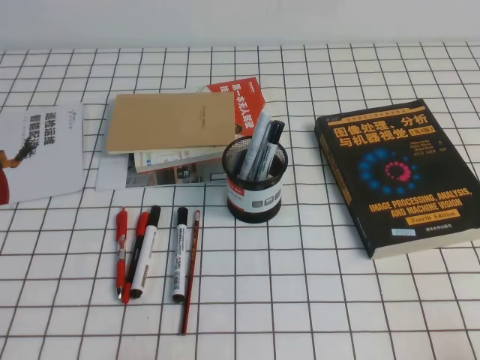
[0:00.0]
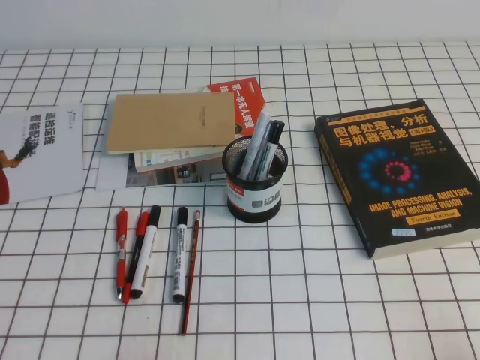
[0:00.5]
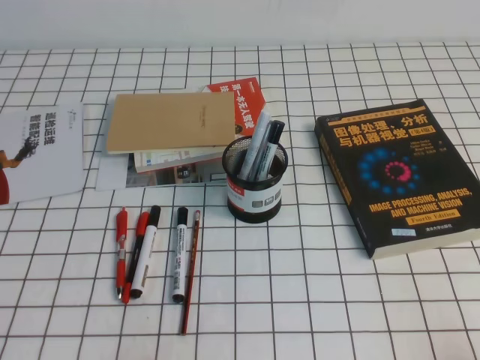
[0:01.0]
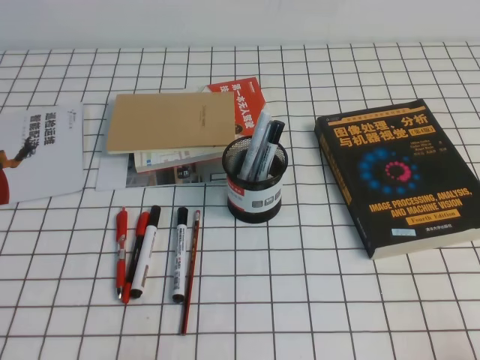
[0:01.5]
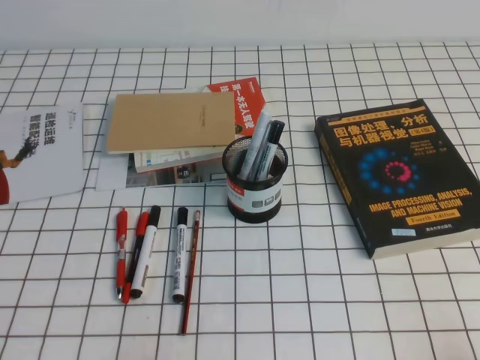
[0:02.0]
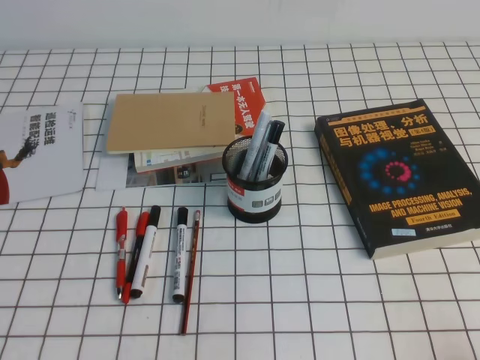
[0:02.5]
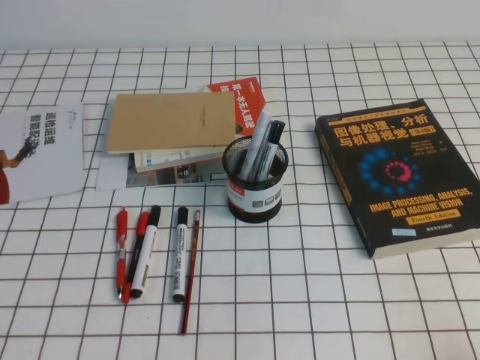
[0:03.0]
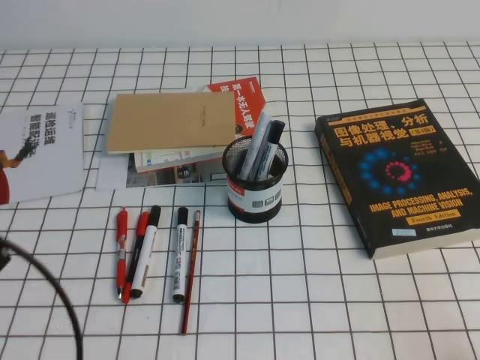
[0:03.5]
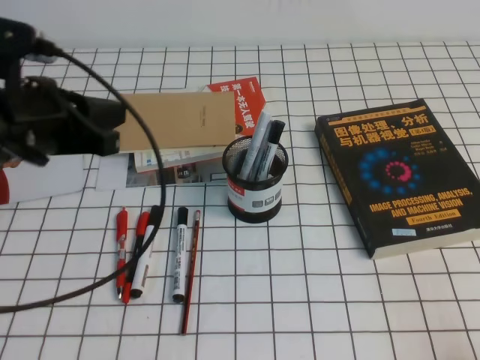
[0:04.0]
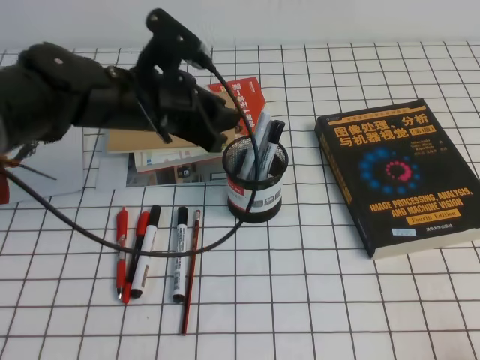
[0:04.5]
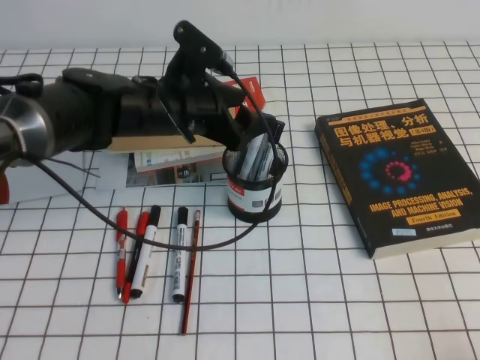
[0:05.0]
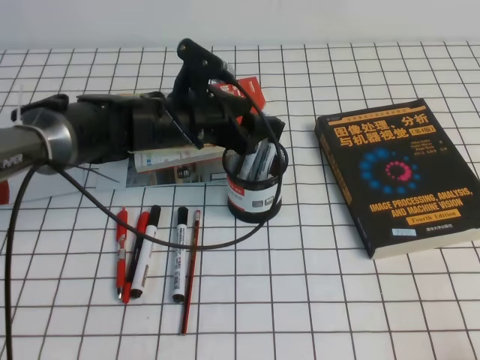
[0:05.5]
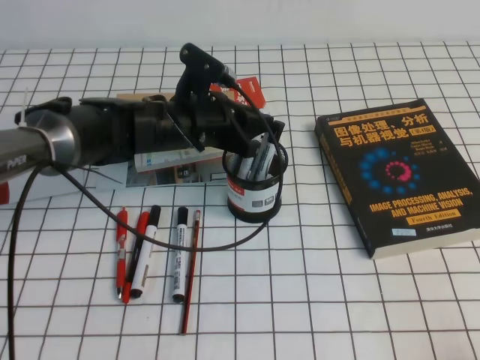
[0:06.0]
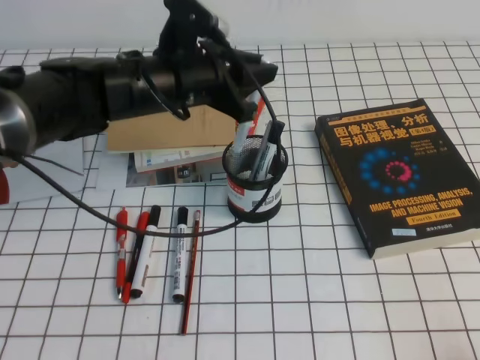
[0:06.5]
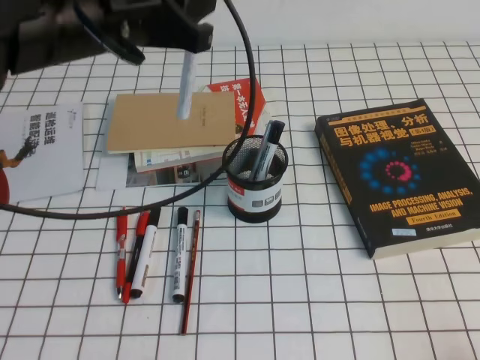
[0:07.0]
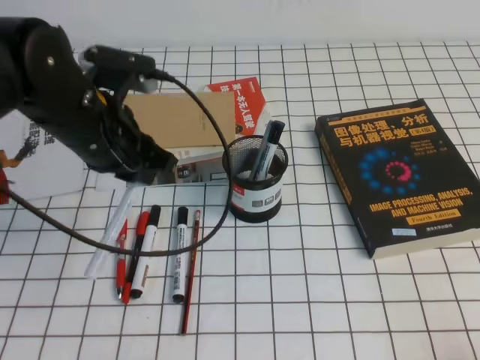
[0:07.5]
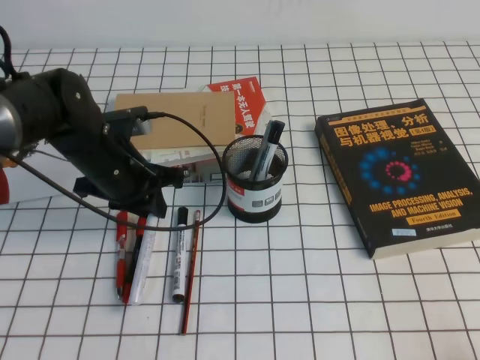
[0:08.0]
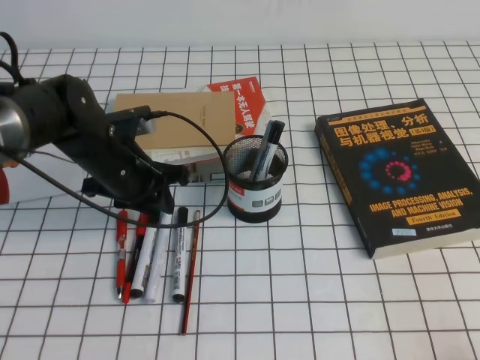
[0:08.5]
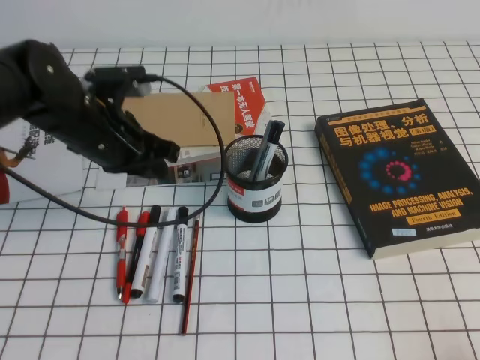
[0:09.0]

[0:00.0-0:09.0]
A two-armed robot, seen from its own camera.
0:00.0 to 0:02.0: Both grippers stay about where they are.
0:02.0 to 0:04.5: The left gripper goes about 35 cm forward and to the right, and opens up.
0:04.5 to 0:07.0: The left gripper travels upward by approximately 10 cm, and opens, then closes once more.
0:07.0 to 0:09.0: The left gripper moves downward, about 10 cm.

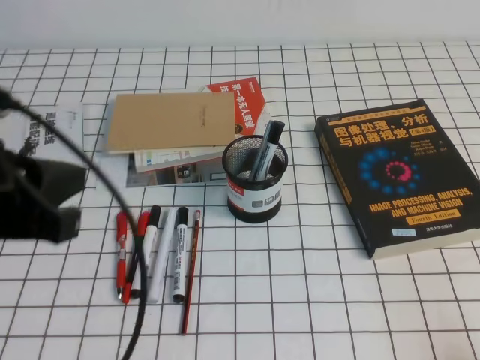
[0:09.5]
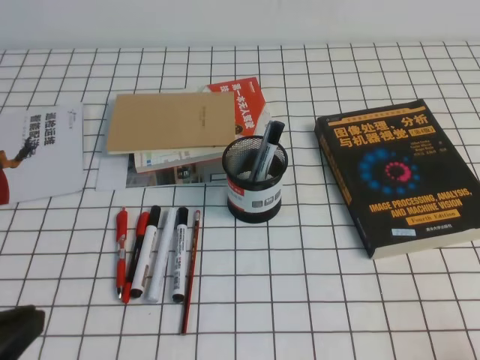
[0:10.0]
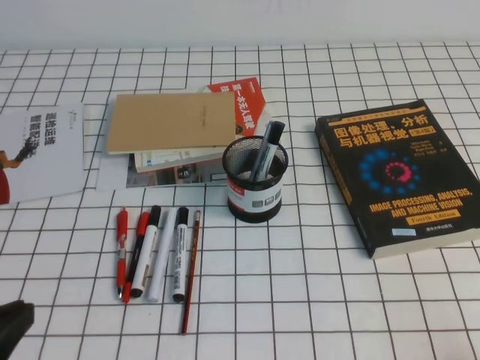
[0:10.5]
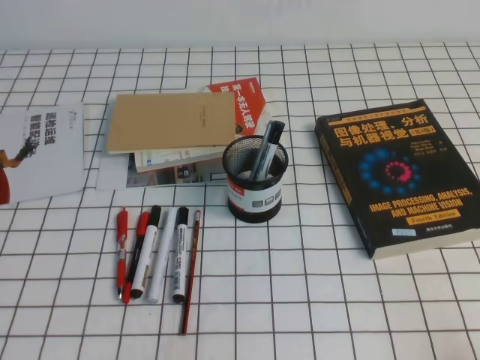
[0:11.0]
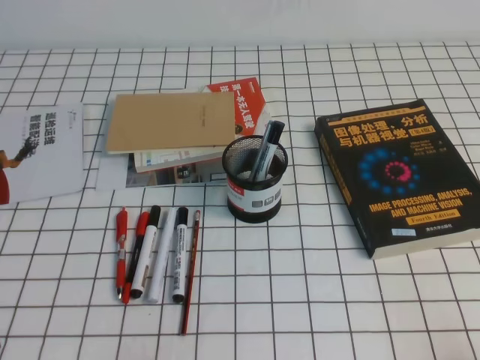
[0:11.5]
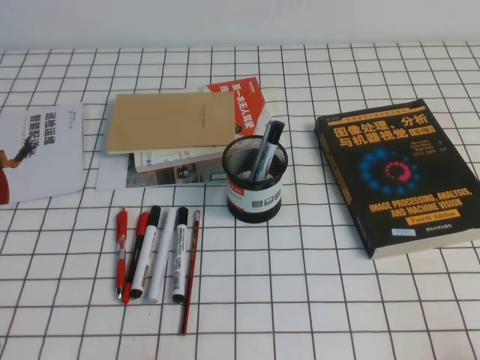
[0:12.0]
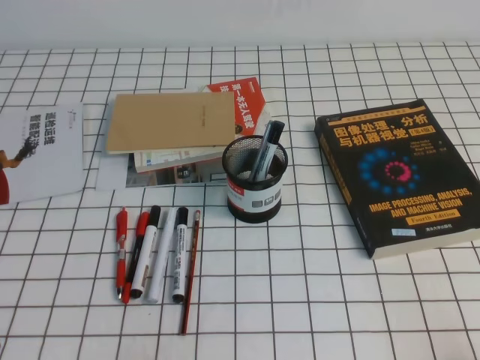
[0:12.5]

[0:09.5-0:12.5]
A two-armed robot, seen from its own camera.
Step, 0:09.5 to 0:12.5: Pick up the pen from the pen holder.
0:09.5 to 0:11.0: The left gripper goes approximately 20 cm downward and backward.
